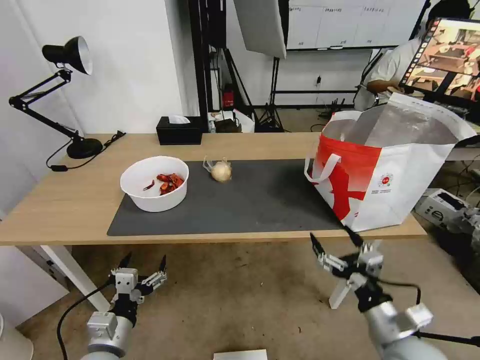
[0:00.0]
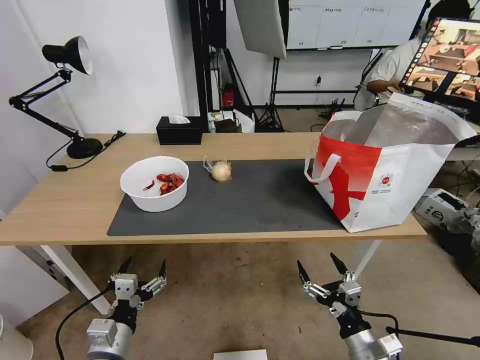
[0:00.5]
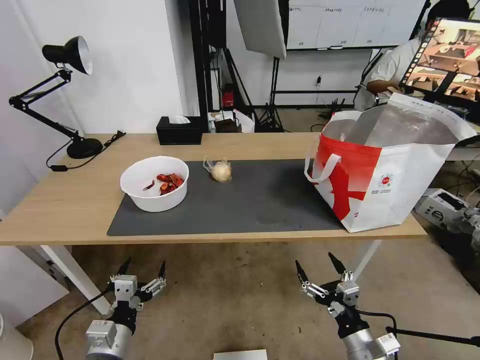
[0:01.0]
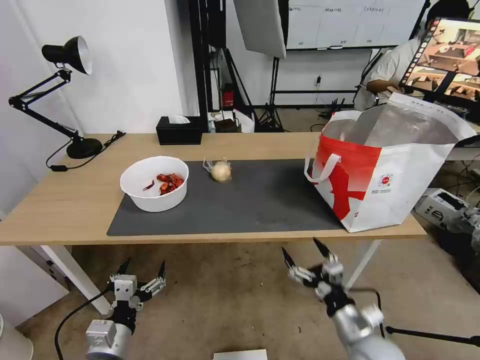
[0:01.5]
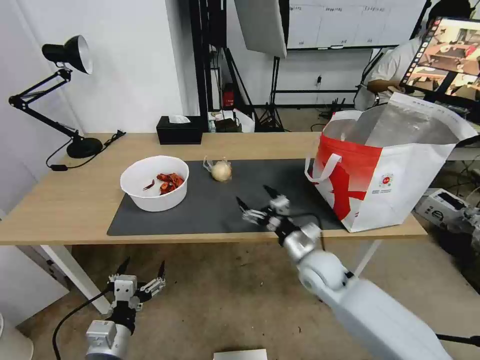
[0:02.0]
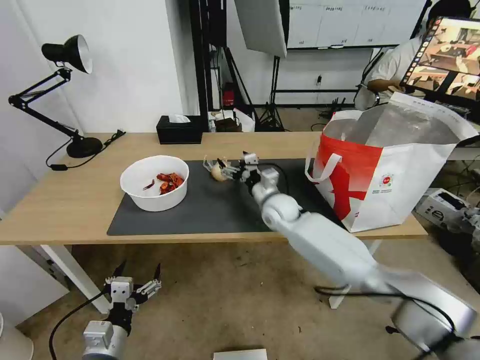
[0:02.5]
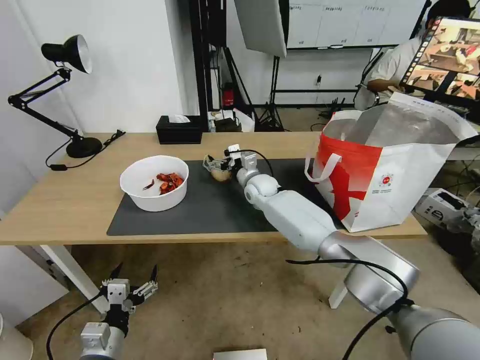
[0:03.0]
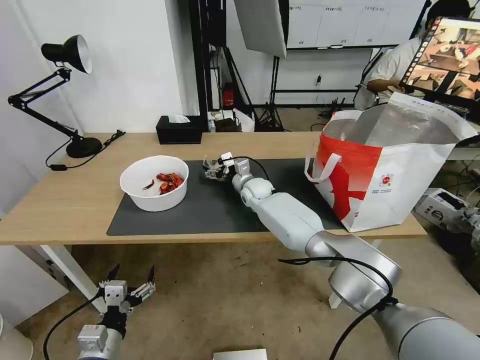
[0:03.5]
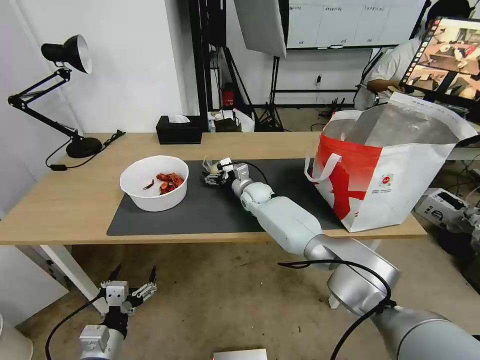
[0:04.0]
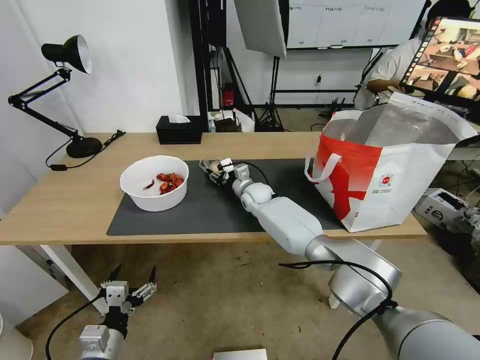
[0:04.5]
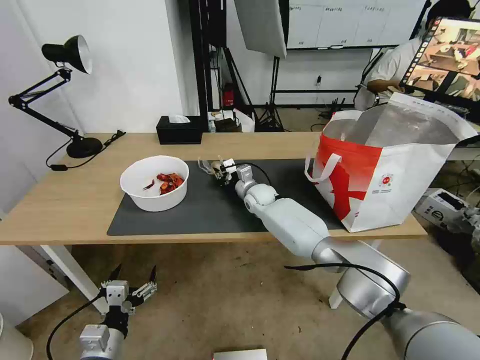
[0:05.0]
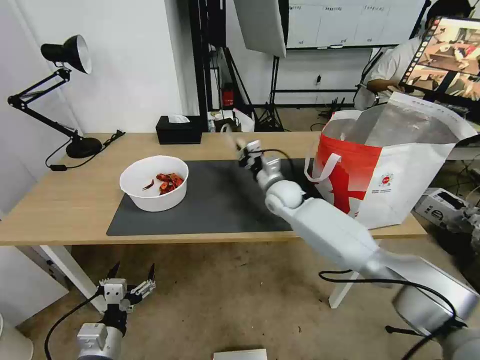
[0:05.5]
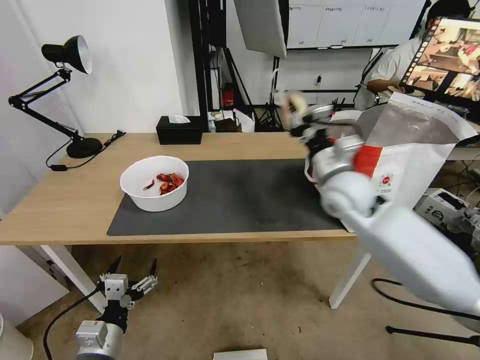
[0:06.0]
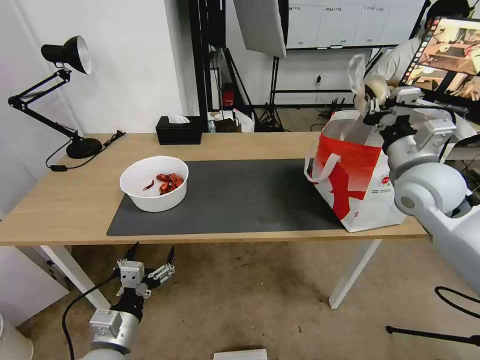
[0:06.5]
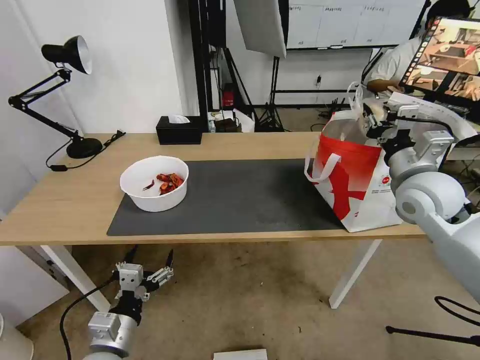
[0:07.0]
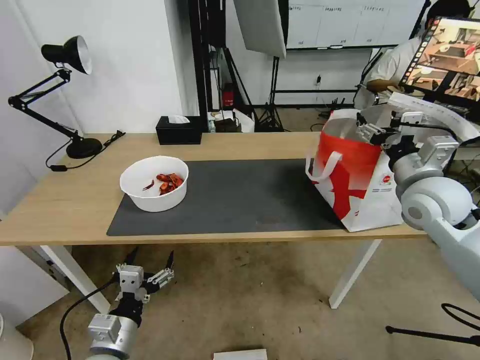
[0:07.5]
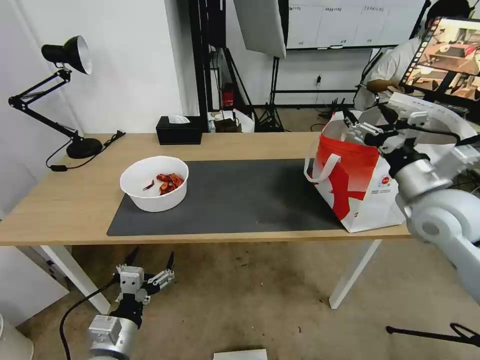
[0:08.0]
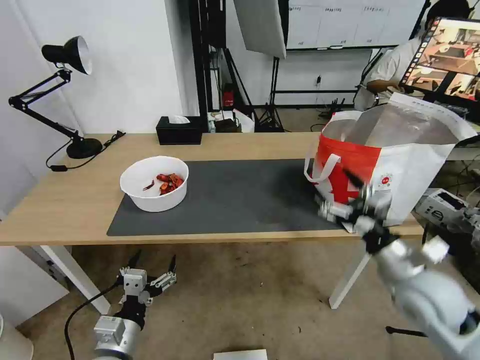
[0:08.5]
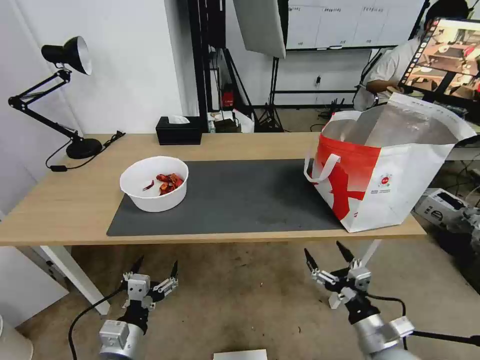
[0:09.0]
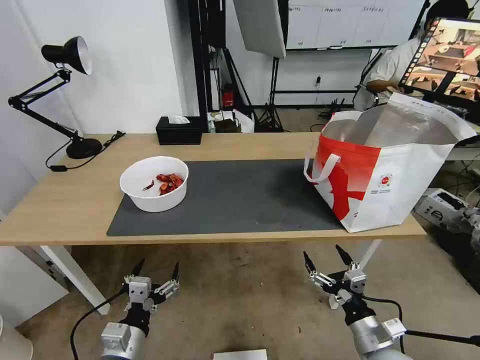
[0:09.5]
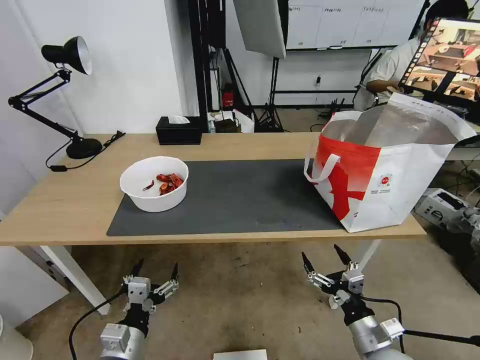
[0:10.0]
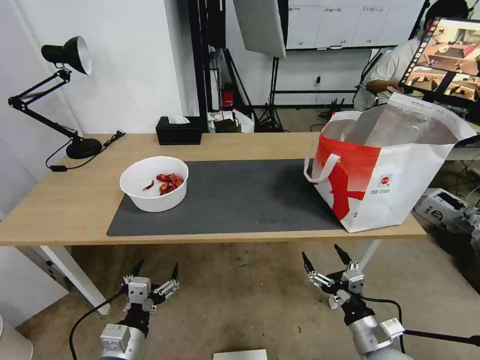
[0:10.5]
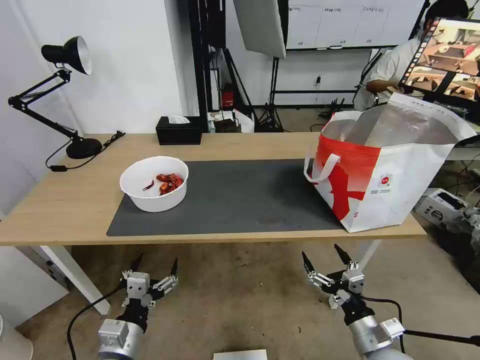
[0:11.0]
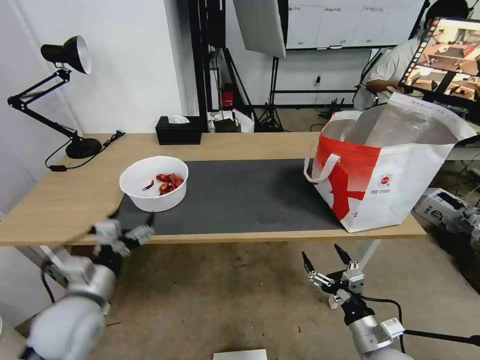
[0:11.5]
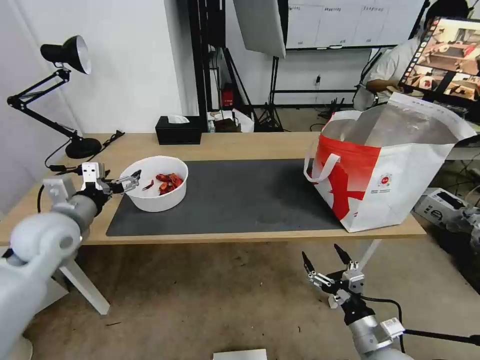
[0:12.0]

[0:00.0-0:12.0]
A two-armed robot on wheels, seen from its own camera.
Task of the whole recording: Pick up the trash from the table and place it into the takeout bag.
0:00.0 to 0:02.0: The right gripper travels forward and to the left by about 20 cm.
0:02.0 to 0:04.0: The right gripper is displaced forward and to the left by about 30 cm.
0:04.0 to 0:06.0: The right gripper shifts some 30 cm upward, backward and to the right, and closes.
0:06.0 to 0:08.0: The right gripper moves to the right and backward, about 15 cm, and opens up.
0:08.0 to 0:10.0: The right gripper moves downward and backward, roughly 35 cm.
0:10.0 to 0:12.0: The left gripper is displaced forward, upward and to the left by some 30 cm.

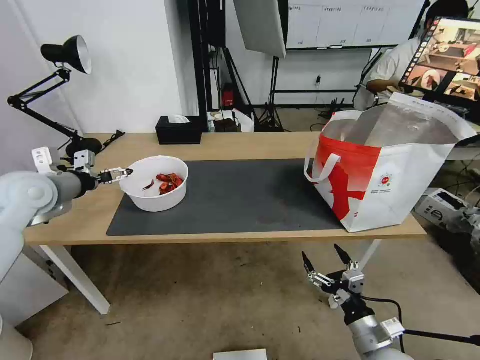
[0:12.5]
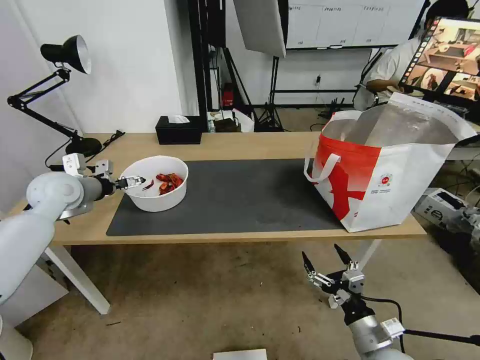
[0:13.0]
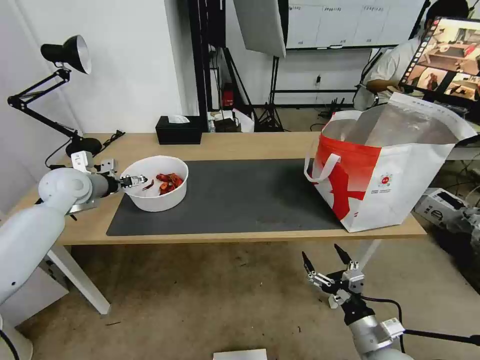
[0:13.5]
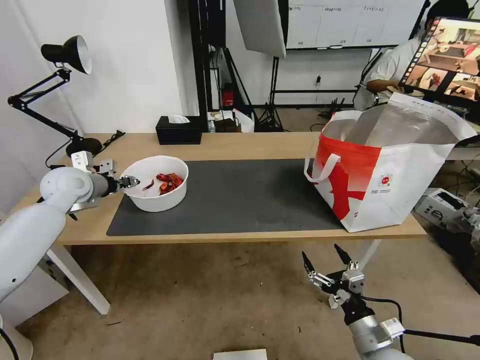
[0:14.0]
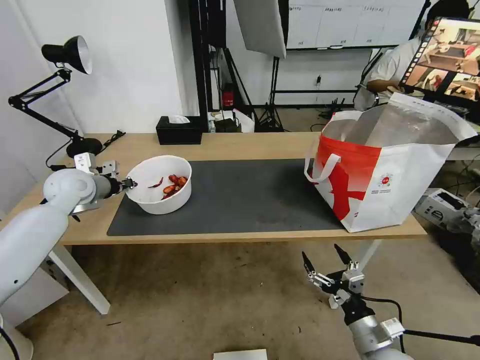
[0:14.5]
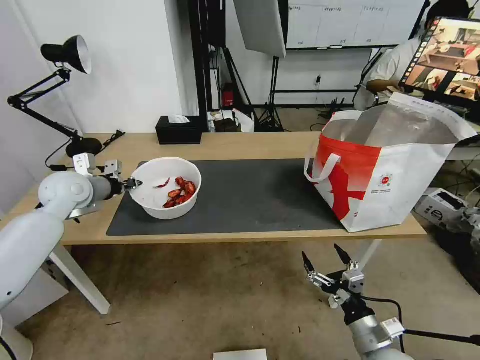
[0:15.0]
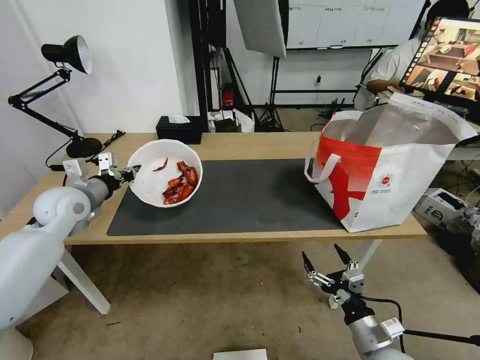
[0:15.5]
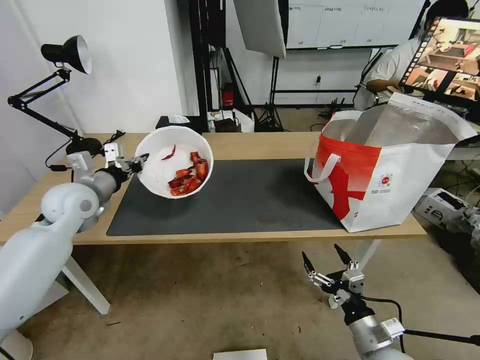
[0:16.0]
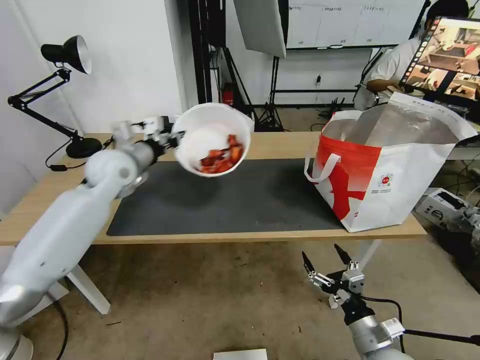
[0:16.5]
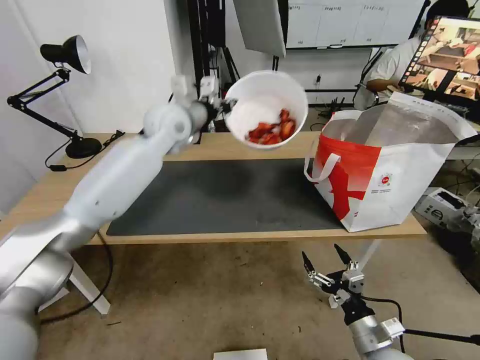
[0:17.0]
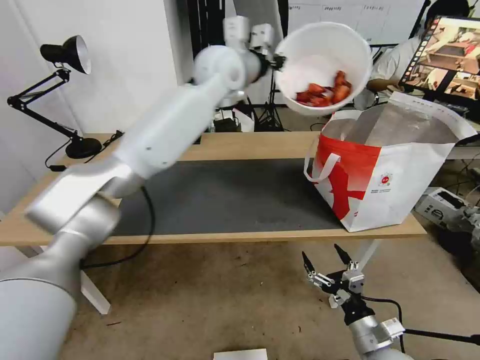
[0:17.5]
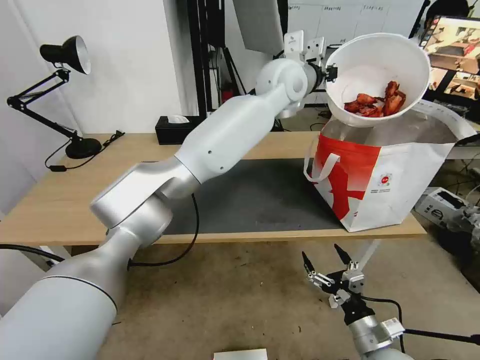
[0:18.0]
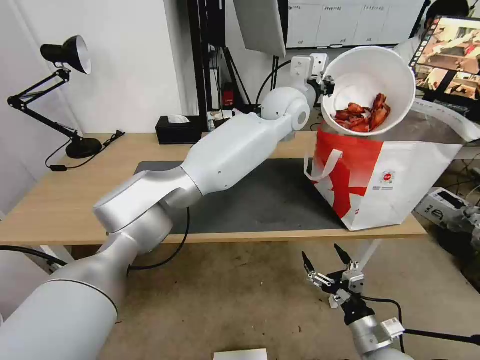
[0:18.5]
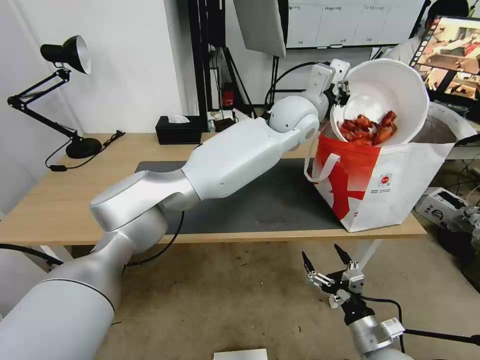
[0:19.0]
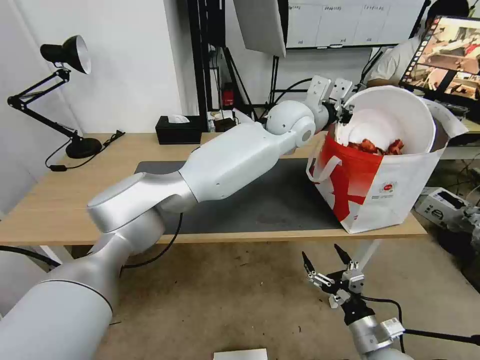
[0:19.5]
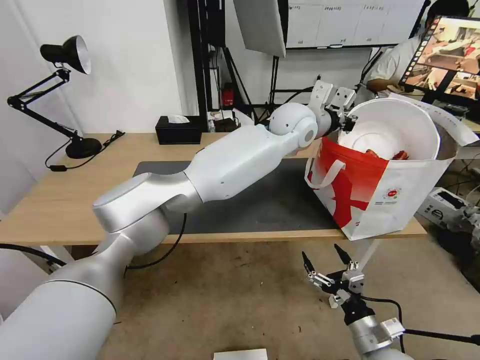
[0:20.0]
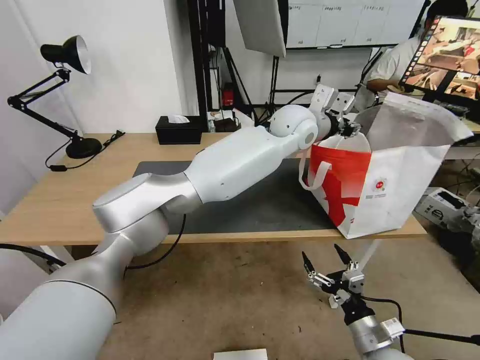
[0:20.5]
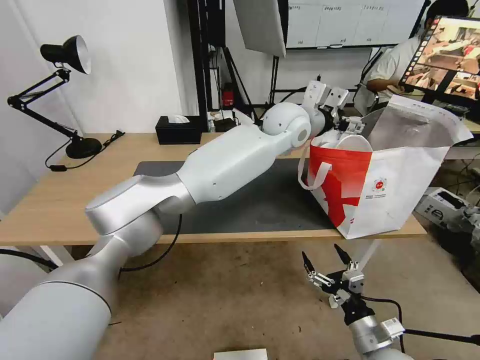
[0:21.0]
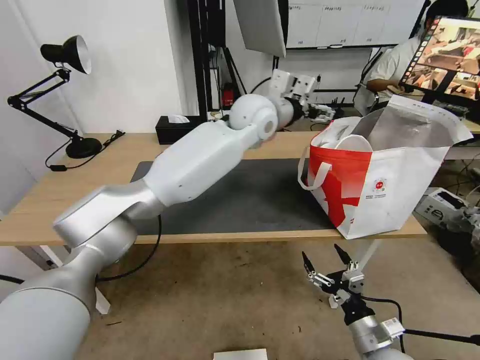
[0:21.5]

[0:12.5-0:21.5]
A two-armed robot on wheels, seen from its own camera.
Task of the whole recording: Pick up the trash from the table and place it into the takeout bag.
0:12.5 to 0:14.5: The left gripper goes about 10 cm forward and downward, and closes up.
0:14.5 to 0:17.0: The left gripper goes roughly 25 cm to the right and upward.
0:17.0 to 0:19.5: The left gripper is displaced to the right by some 25 cm.
0:19.5 to 0:21.5: The left gripper heads to the left, covering approximately 10 cm, and opens.

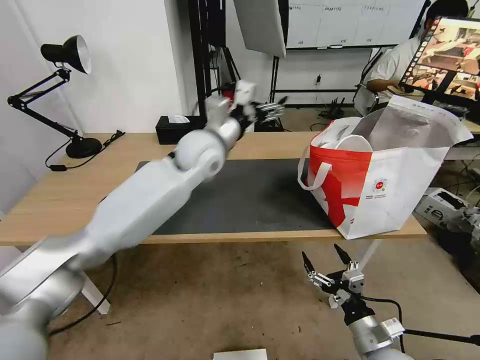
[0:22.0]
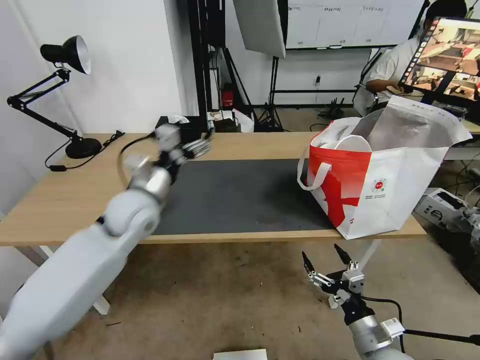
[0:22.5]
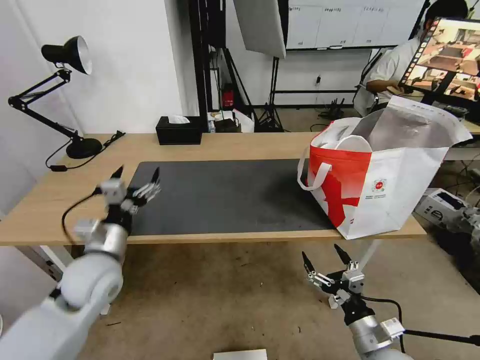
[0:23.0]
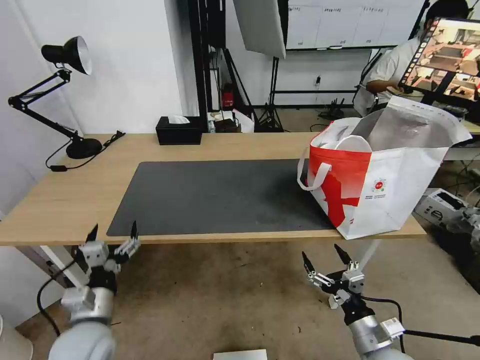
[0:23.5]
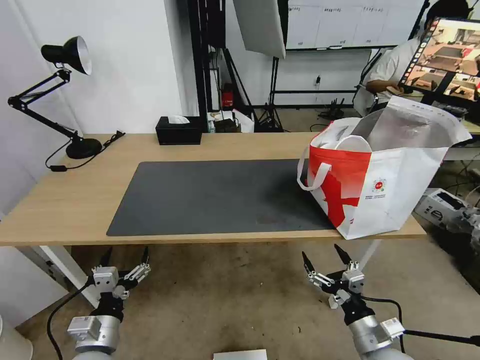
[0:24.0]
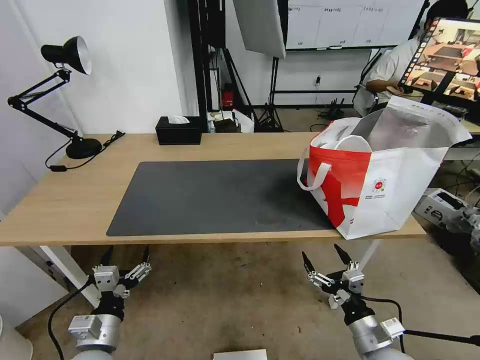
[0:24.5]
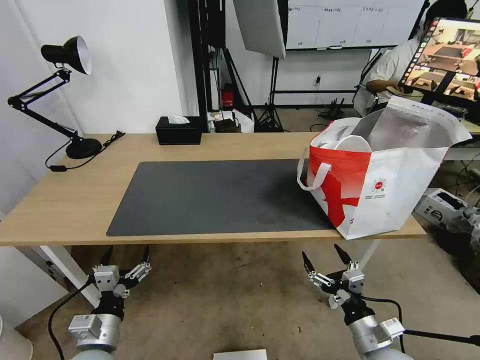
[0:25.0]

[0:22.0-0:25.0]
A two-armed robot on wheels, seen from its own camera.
Task of the whole recording: Pick up the trash from the table and place it into the takeout bag.
0:22.0 to 0:23.5: The left gripper is displaced backward, downward and to the left by approximately 40 cm.
0:23.5 to 0:25.0: The left gripper ends up some 5 cm from where it was.

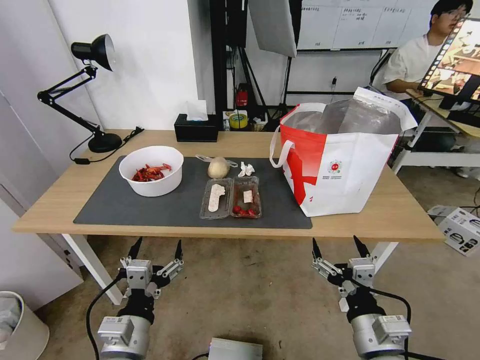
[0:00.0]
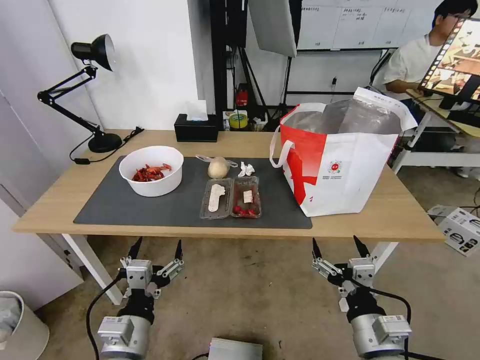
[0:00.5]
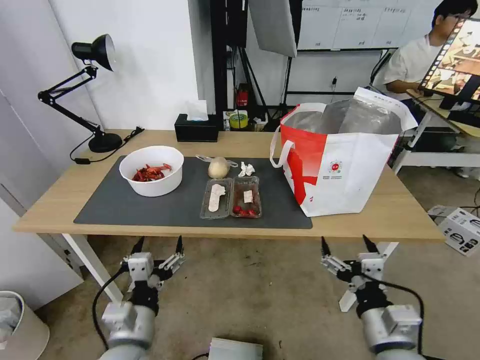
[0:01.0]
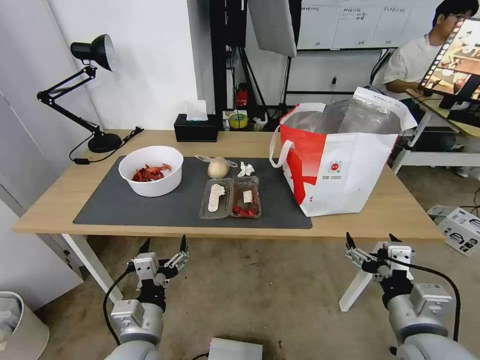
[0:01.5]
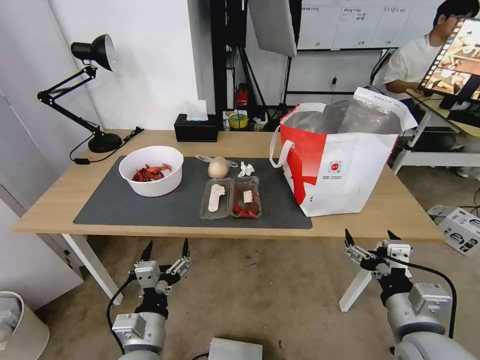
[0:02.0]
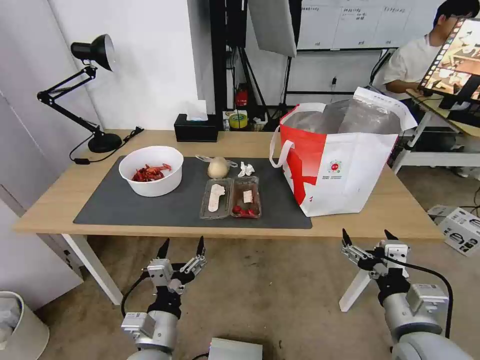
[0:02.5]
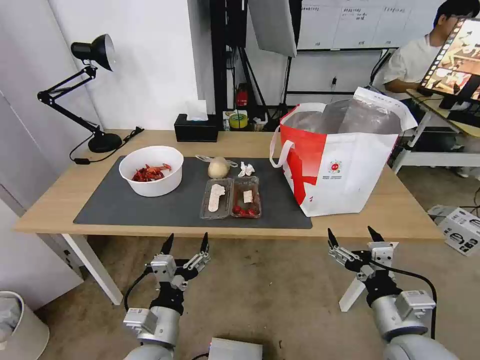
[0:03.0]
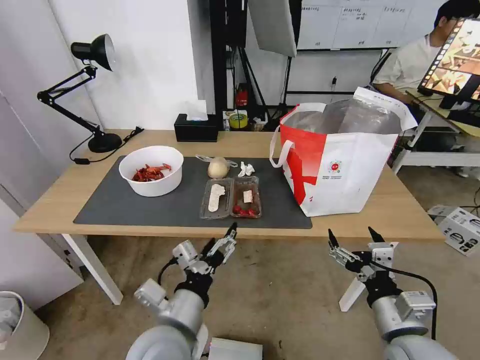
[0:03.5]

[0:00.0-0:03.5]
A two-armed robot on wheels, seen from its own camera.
Task of the whole recording: Pick up the trash from the table and place it into the takeout bag.
0:02.0 to 0:03.5: The left gripper shifts approximately 10 cm upward and to the right.
